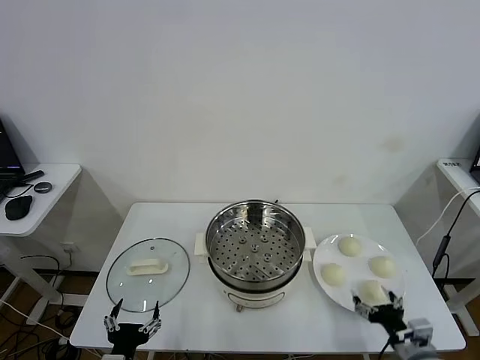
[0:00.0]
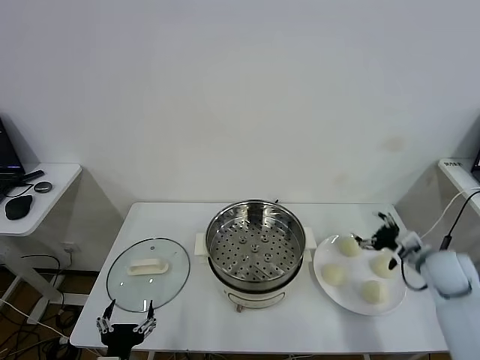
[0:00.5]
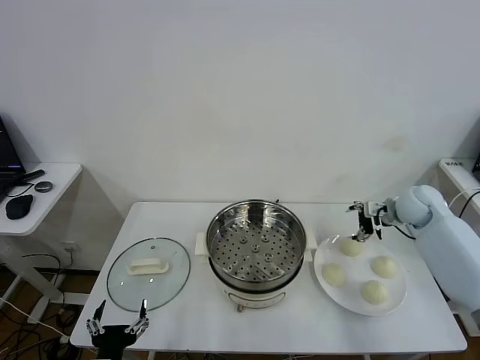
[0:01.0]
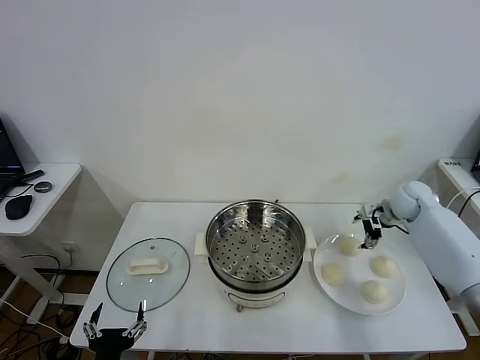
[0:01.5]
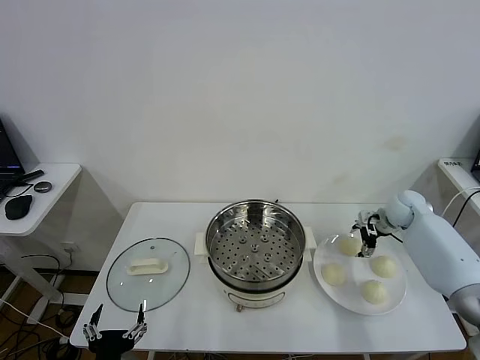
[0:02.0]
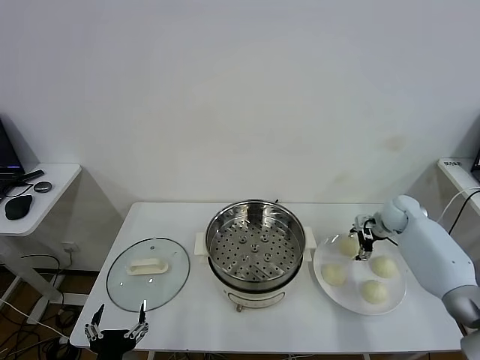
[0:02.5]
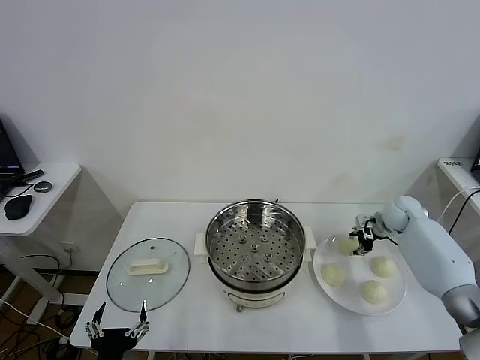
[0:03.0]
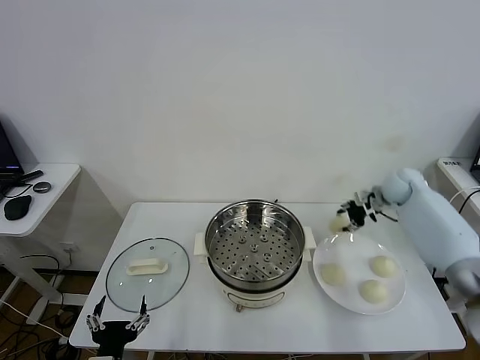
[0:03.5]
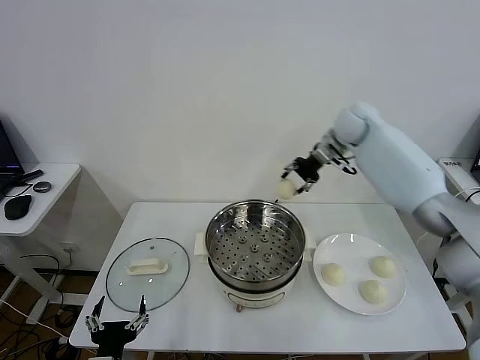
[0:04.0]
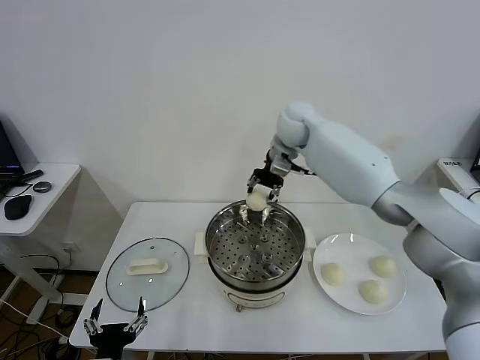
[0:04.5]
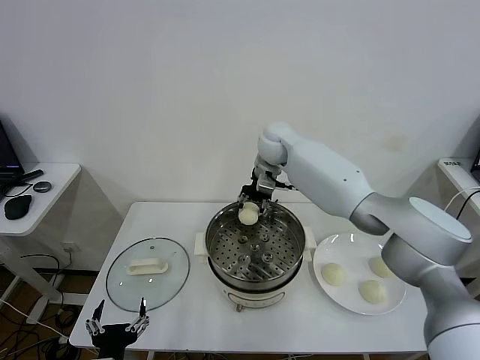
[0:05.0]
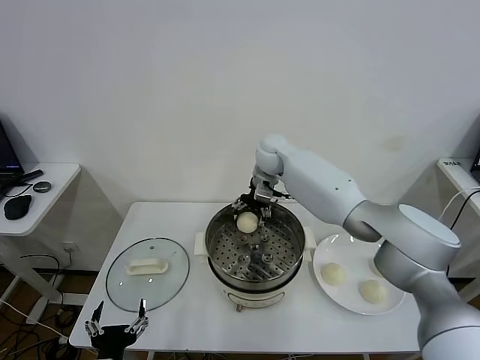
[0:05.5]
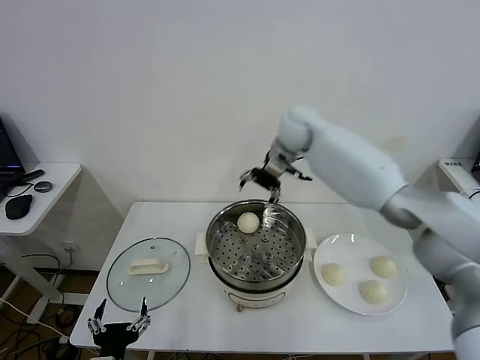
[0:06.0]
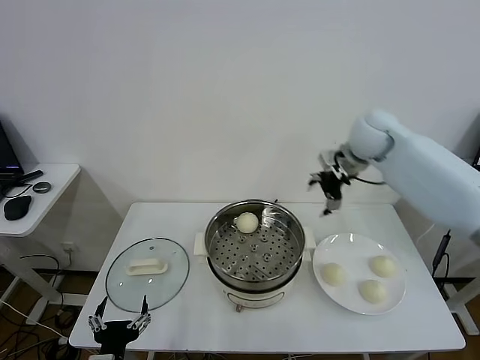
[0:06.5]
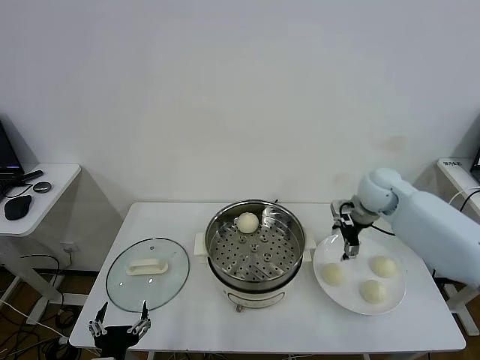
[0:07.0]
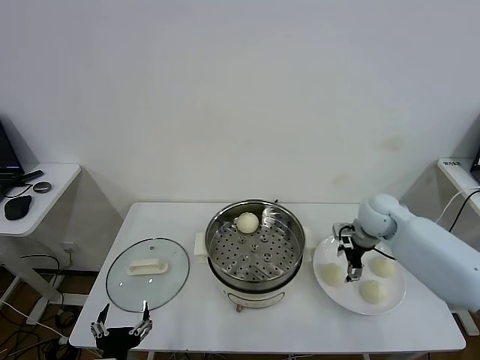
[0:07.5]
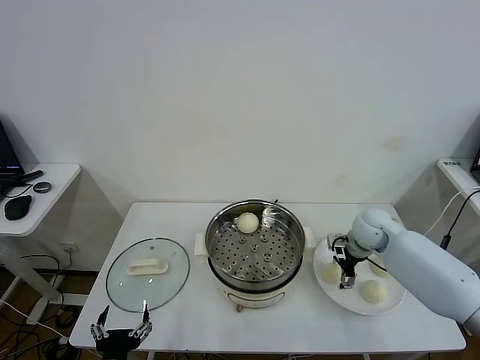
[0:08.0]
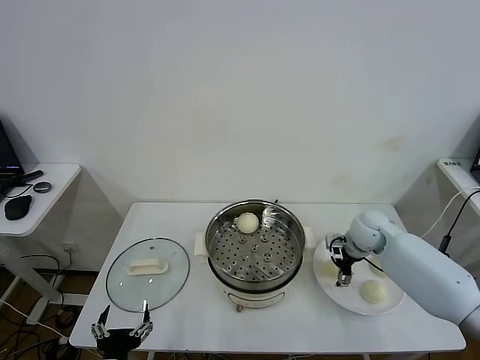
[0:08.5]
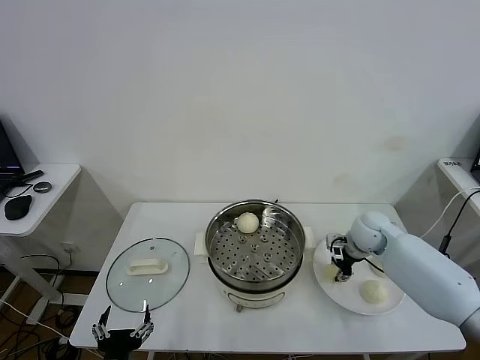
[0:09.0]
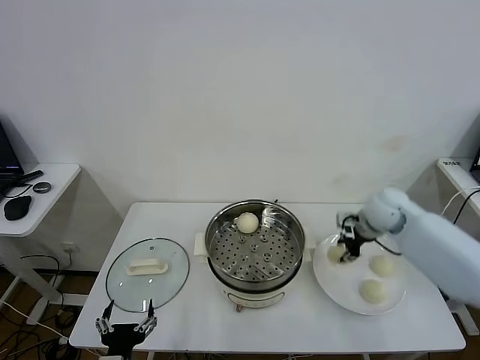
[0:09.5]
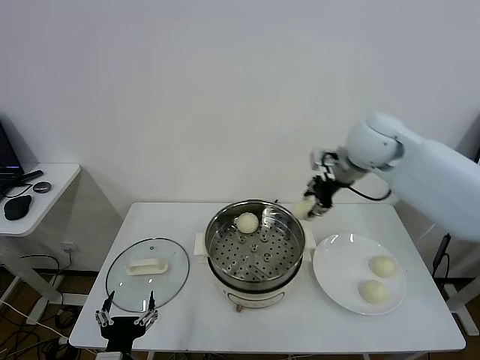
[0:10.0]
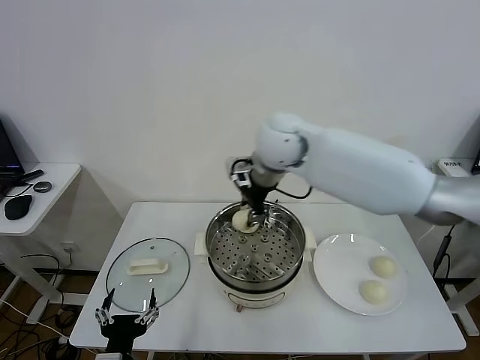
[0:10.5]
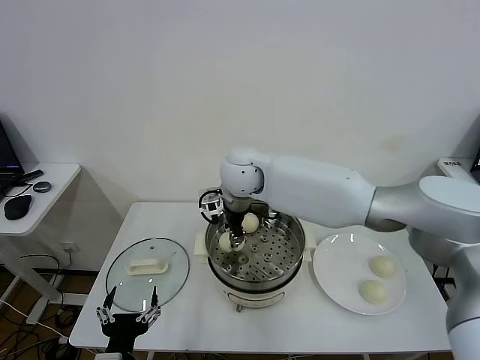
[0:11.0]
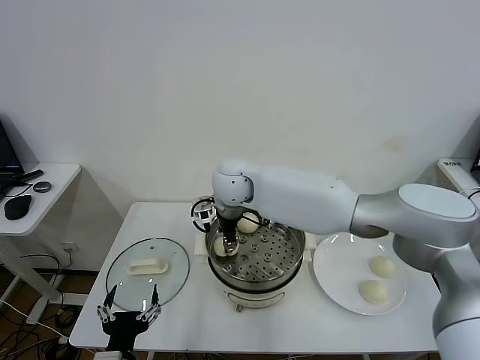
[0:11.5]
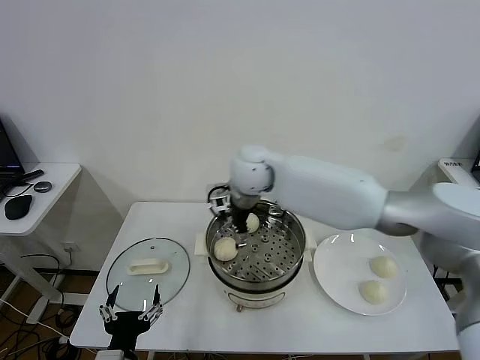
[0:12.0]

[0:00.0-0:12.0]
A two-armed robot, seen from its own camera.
Task of the whole recording: take steamed baozi put them in steamer.
Step, 0:00.0 to 0:02.5: Grasp the baozi in the plate with right gripper.
Step, 0:03.0 to 0:05.5: Place the baozi on the steamer with right gripper.
Step, 0:06.0 to 0:08.5: Grasp the baozi in the plate with right gripper.
Step, 0:09.0 to 0:12.0: Place the baozi on the steamer with right gripper.
0:02.0 to 0:04.0: The right gripper moves upward, to the left and forward, some 30 cm, and closes its fingers.
0:04.0 to 0:06.0: The right gripper heads to the left, covering some 10 cm, and opens up.
0:06.0 to 0:08.0: The right gripper moves downward, to the right and backward, some 30 cm.
0:08.0 to 0:10.0: The right gripper shifts about 25 cm upward, and closes its fingers.
0:10.0 to 0:12.0: The right gripper shifts roughly 20 cm to the left, and opens its fingers.

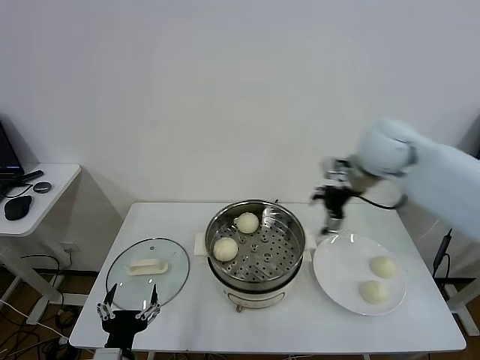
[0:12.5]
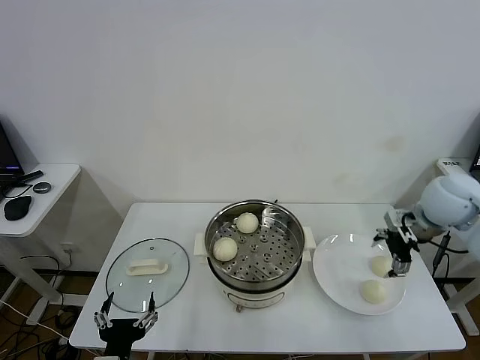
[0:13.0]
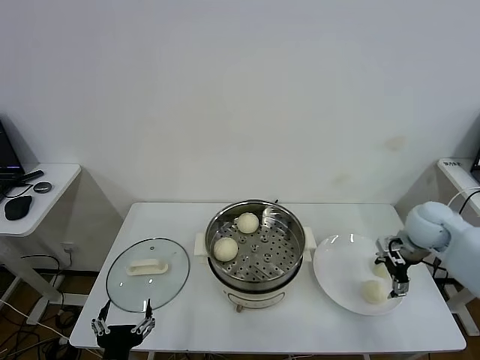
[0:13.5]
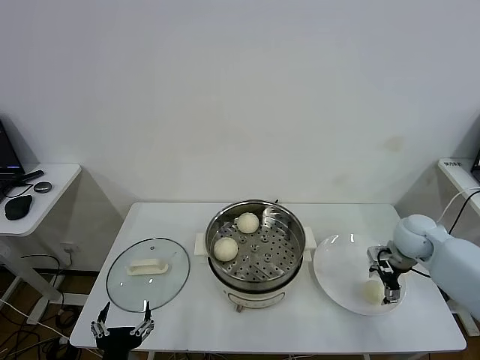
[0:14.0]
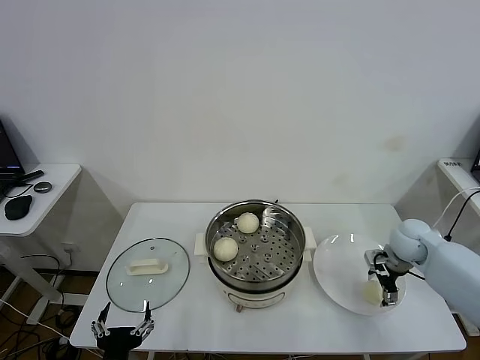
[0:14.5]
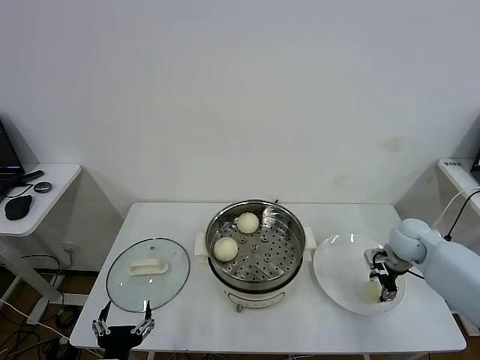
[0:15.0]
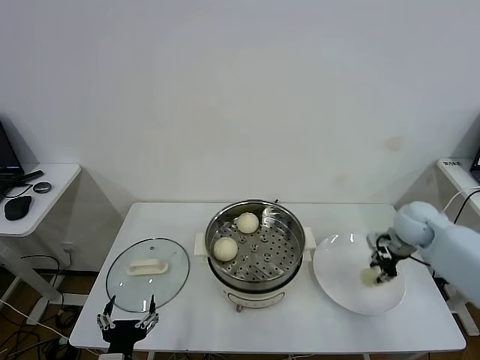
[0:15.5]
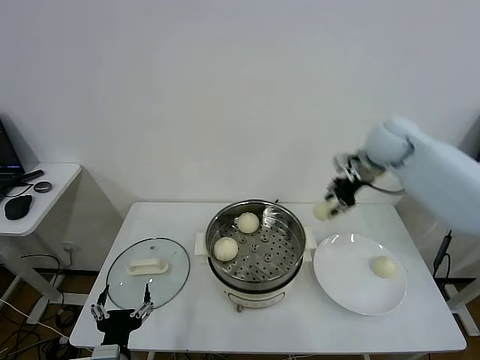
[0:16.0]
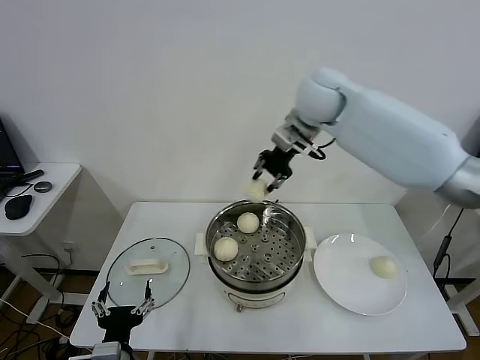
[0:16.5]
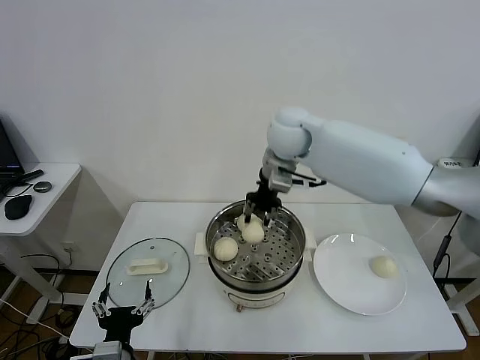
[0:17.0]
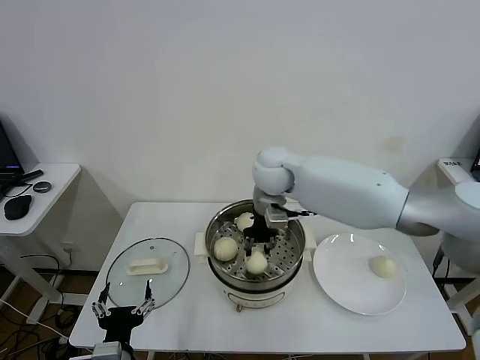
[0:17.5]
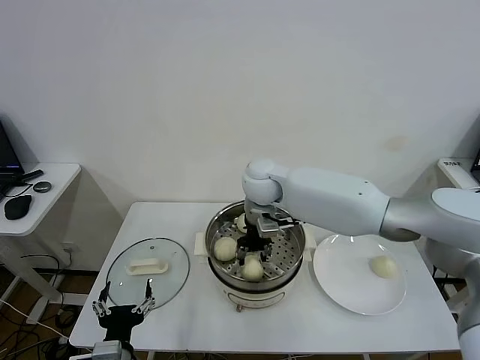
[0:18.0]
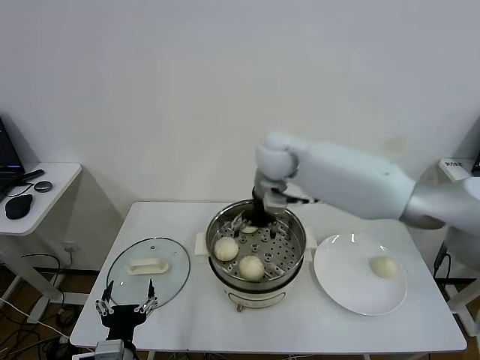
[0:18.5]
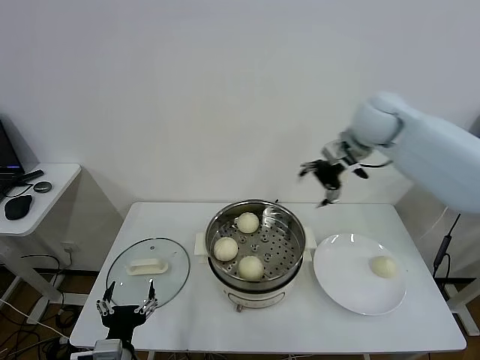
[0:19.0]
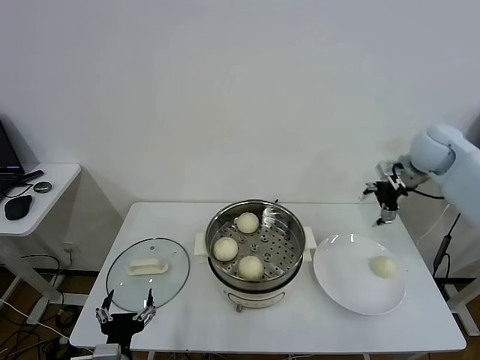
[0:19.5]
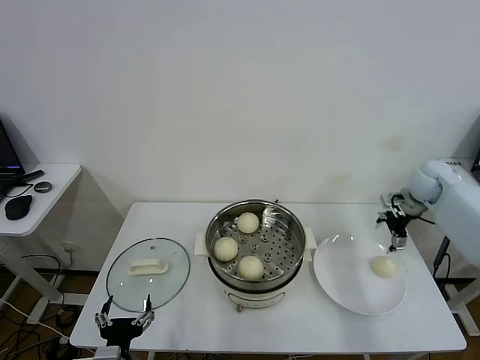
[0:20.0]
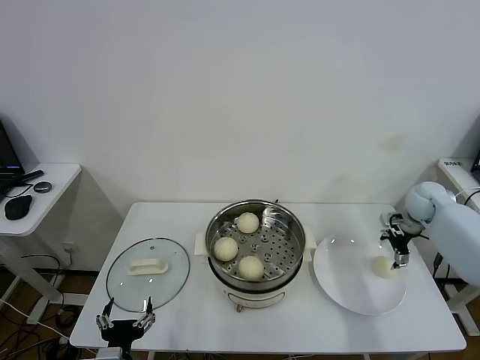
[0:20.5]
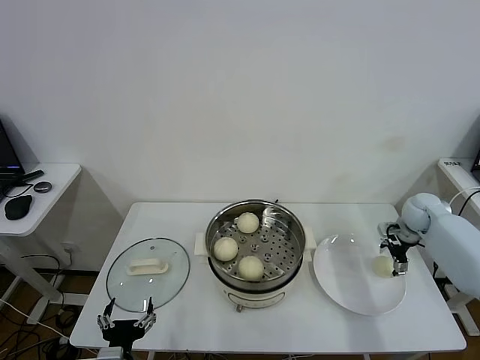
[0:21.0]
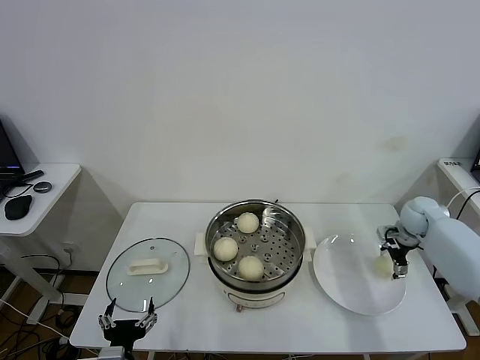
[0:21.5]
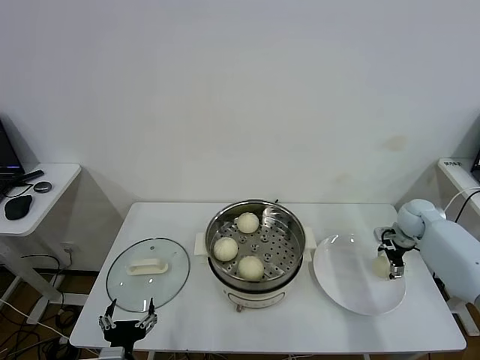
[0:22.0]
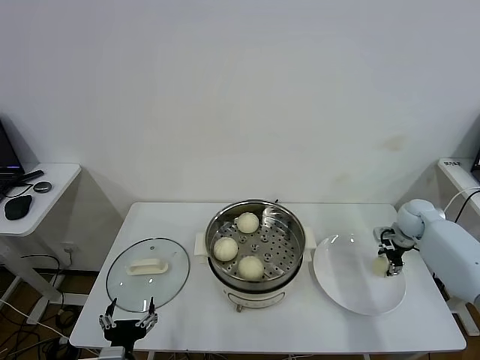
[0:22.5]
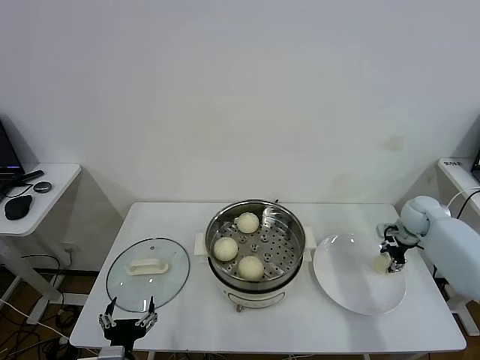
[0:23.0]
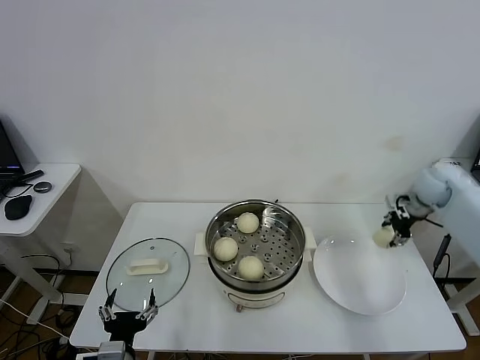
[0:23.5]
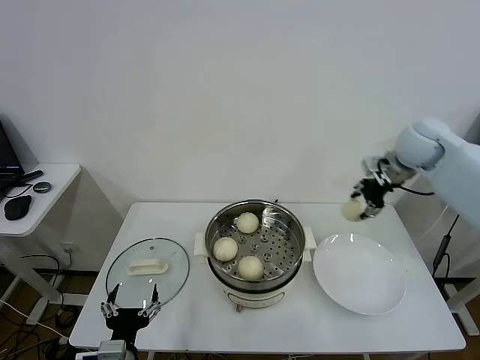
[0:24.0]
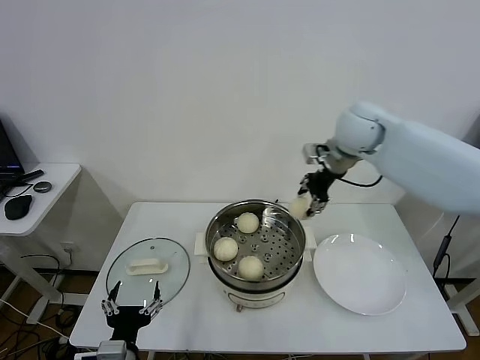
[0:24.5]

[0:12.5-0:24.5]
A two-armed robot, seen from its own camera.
Task of the whole recording: take steamed baozi put them in steamer.
Step, 0:12.5 to 0:15.0: Grasp the baozi in the plate with right gripper.
Step, 0:15.5 to 0:18.0: Place the baozi on the steamer with right gripper.
Step, 0:19.0 to 0:22.5: Grasp the baozi in the plate with right gripper.
0:12.5 to 0:14.5: The right gripper heads downward and to the right, covering approximately 25 cm.
0:14.5 to 0:16.5: The right gripper heads upward and to the left, covering approximately 40 cm, and closes up.
0:16.5 to 0:18.5: The right gripper goes approximately 15 cm downward and to the left, and opens.
0:18.5 to 0:20.5: The right gripper moves to the right, some 40 cm.
0:20.5 to 0:22.5: The right gripper travels downward by approximately 5 cm, and closes its fingers.
0:22.5 to 0:24.5: The right gripper travels upward and to the left by roughly 35 cm.

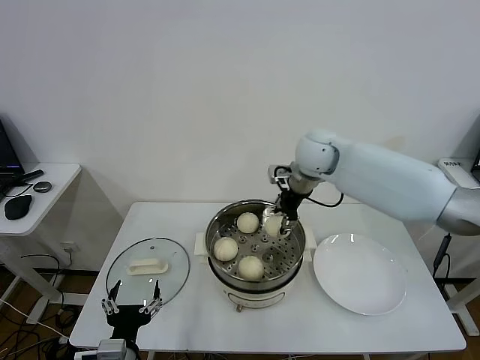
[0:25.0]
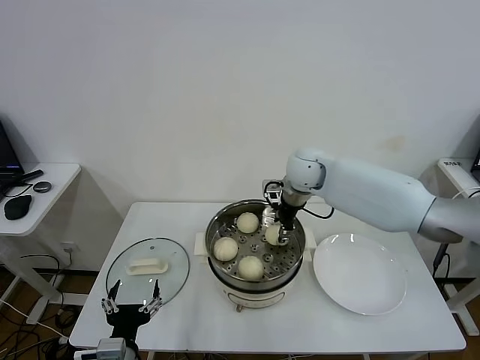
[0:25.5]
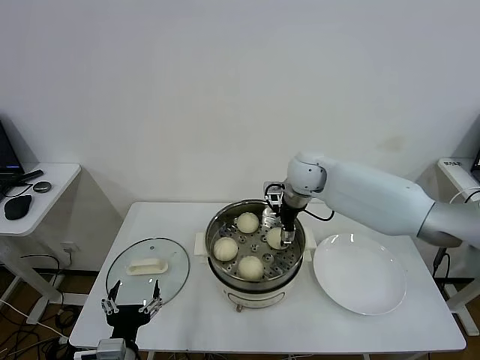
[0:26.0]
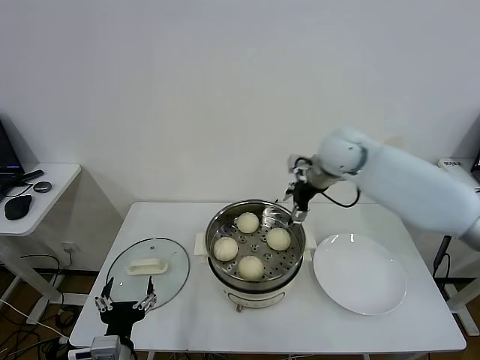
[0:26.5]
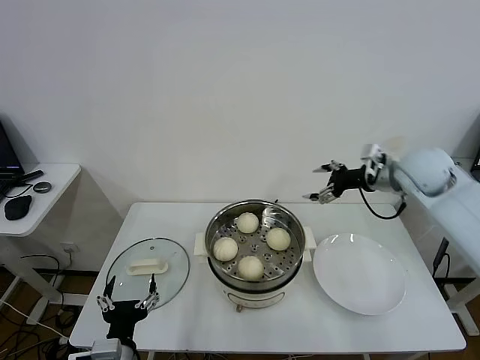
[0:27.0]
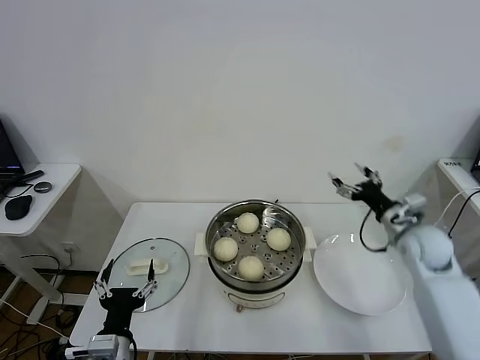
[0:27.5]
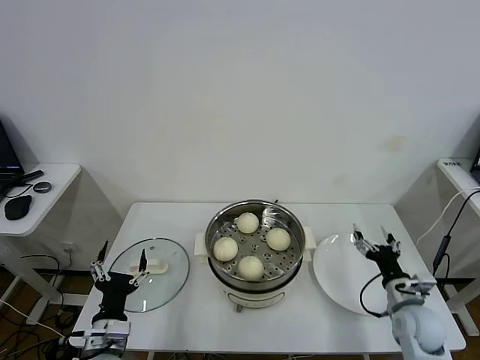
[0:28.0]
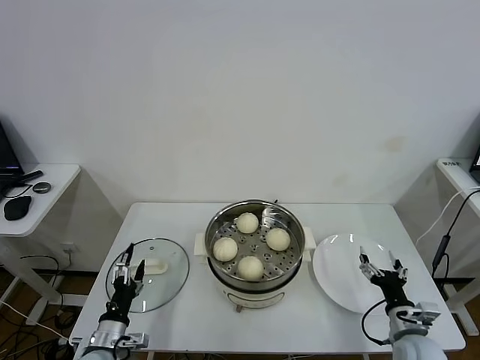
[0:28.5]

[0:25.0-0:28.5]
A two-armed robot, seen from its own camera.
Task of the whole recording: take steamed baozi put them in steamer.
0:25.0 to 0:27.0: The right gripper shifts roughly 20 cm to the right, and opens up.
0:27.0 to 0:28.5: The right gripper goes approximately 40 cm downward and backward. The left gripper goes roughly 15 cm downward, to the left and forward.
